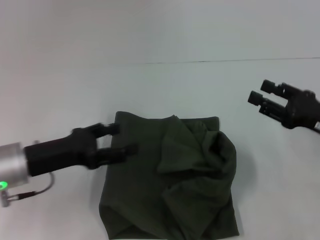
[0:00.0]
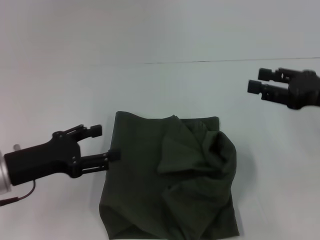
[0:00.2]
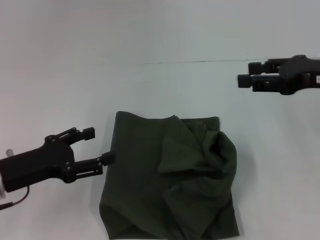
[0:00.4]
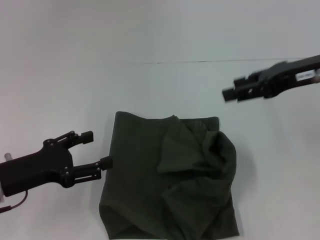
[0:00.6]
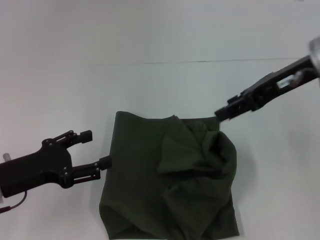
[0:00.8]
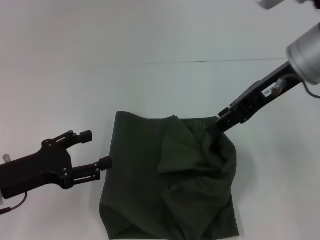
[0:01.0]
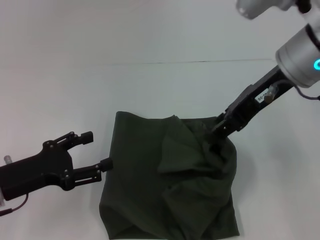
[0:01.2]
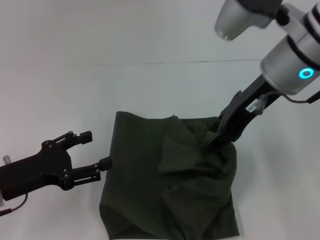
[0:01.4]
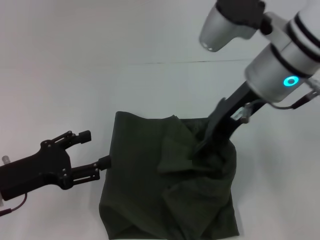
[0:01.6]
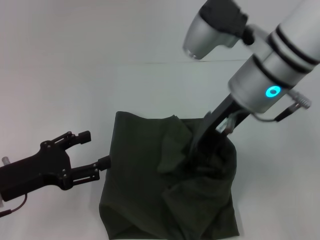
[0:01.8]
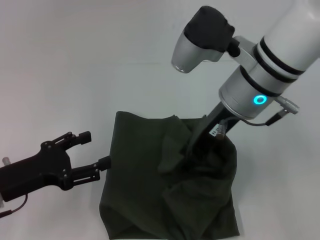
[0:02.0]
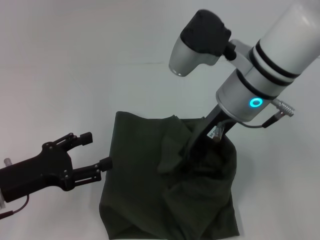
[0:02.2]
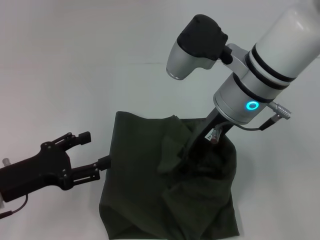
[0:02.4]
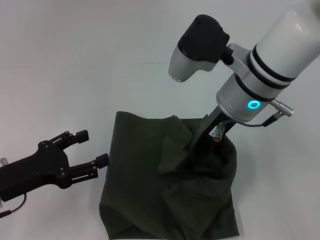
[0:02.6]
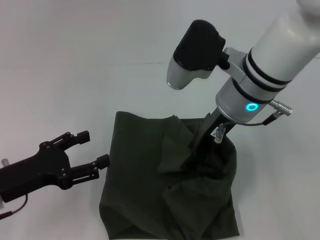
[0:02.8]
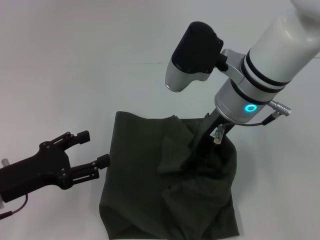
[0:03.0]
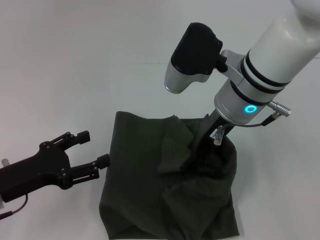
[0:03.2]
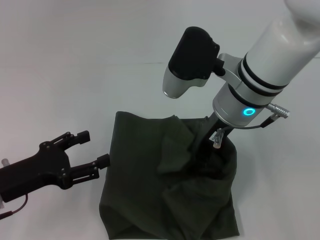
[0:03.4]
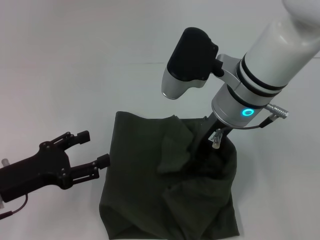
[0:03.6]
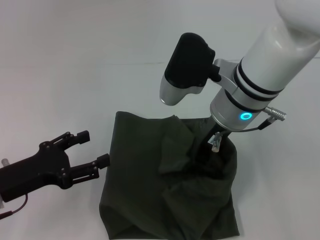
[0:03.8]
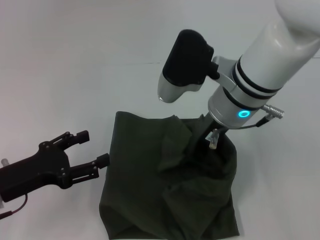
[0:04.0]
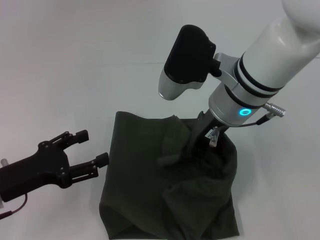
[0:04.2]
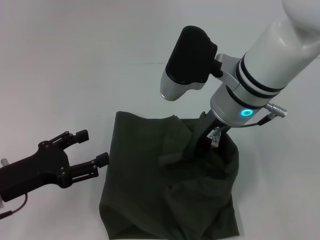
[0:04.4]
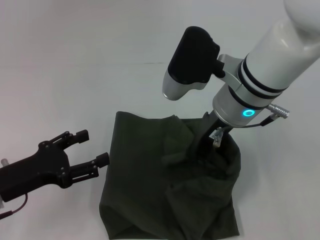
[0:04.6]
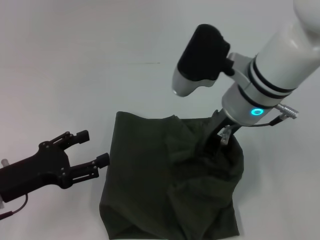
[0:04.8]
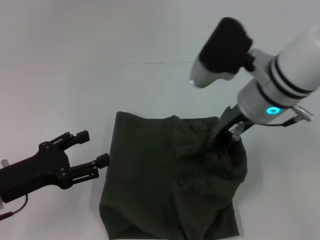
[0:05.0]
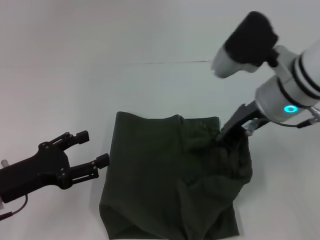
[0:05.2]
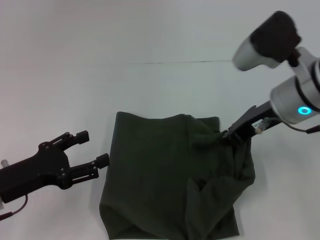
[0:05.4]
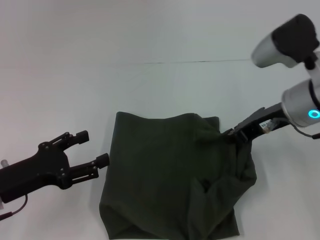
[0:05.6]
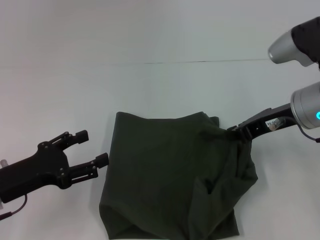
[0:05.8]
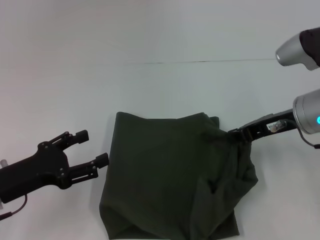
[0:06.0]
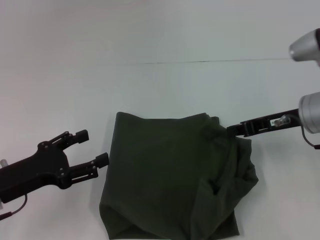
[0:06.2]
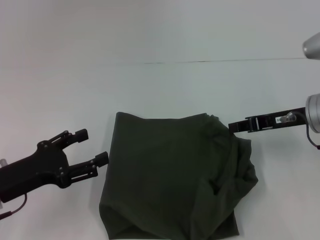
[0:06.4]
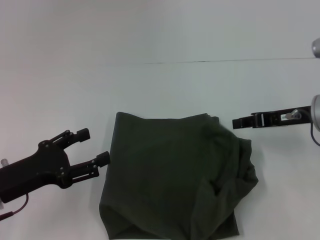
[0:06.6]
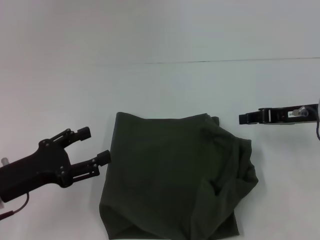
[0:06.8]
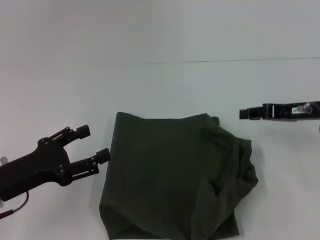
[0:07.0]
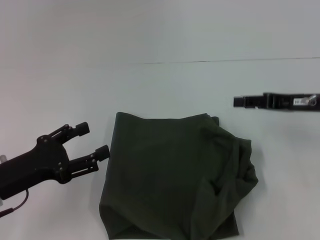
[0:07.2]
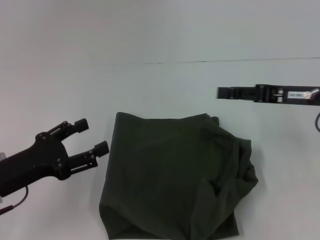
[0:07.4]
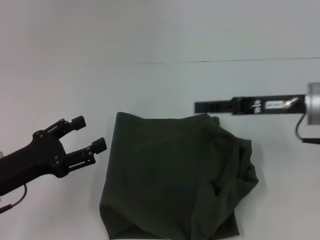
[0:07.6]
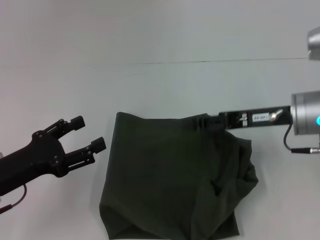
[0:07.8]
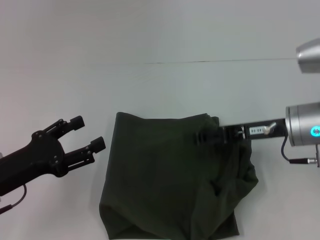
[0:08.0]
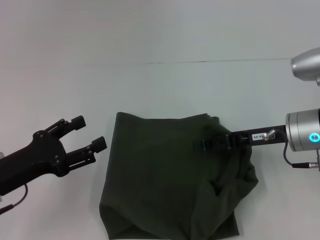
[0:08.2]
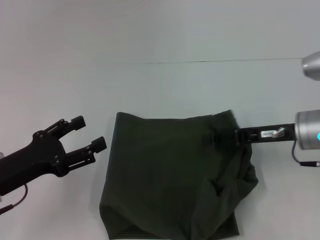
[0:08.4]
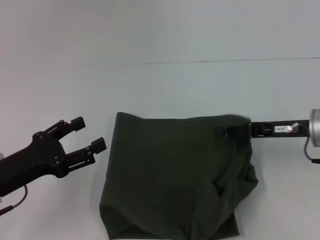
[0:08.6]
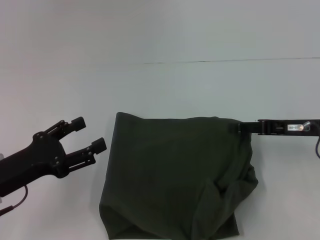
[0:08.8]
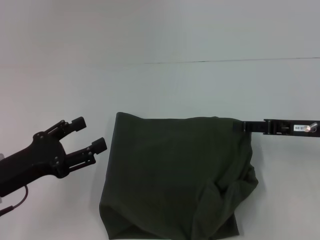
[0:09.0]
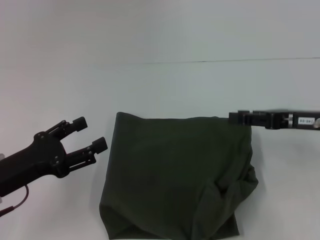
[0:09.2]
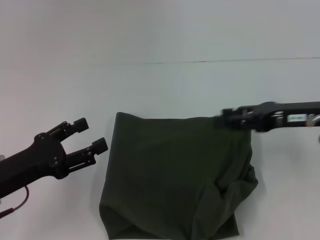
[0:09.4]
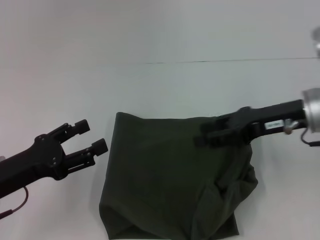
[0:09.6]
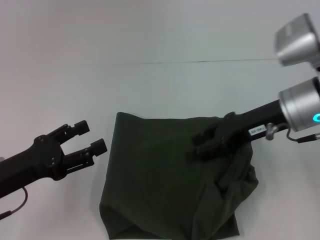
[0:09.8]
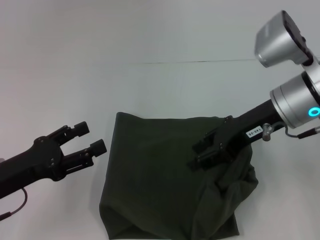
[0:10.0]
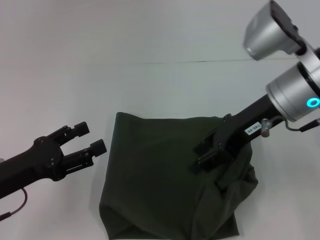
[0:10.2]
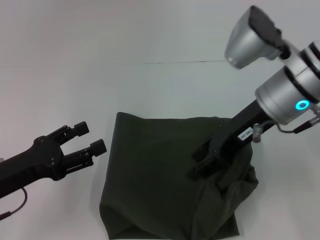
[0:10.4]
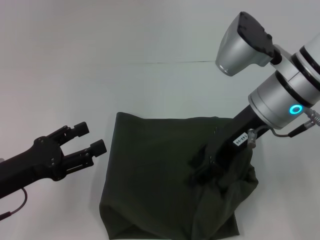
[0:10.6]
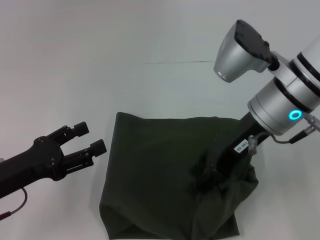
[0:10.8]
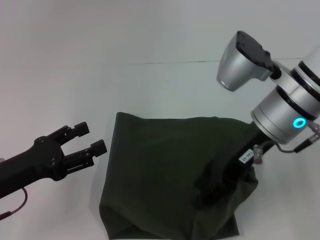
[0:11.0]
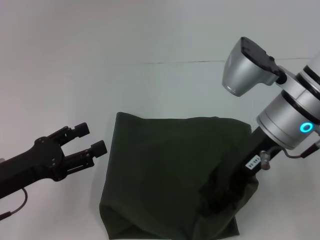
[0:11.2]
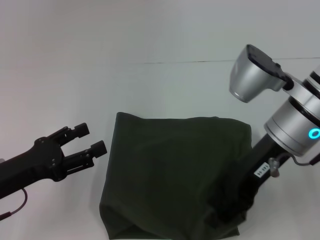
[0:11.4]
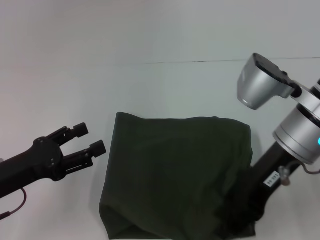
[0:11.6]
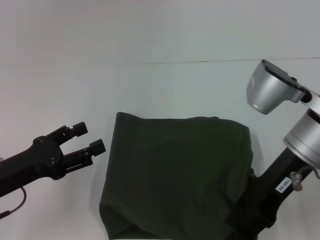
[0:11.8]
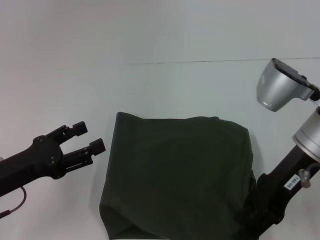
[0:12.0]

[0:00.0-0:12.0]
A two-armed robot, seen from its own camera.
0:00.0 to 0:01.6: The left gripper shifts by about 5 cm. Meanwhile the right gripper heads to the left and upward, covering approximately 25 cm.
0:01.6 to 0:03.0: The right gripper shifts by roughly 5 cm.
0:03.0 to 0:04.4: The right gripper closes up.
0:04.4 to 0:06.0: The right gripper shifts approximately 15 cm to the right.
0:06.0 to 0:07.6: The right gripper opens.
0:07.6 to 0:09.0: The right gripper goes about 5 cm to the right.
0:09.0 to 0:10.4: The right gripper heads to the left and upward, covering approximately 15 cm.
0:10.4 to 0:12.0: The right gripper moves roughly 5 cm.

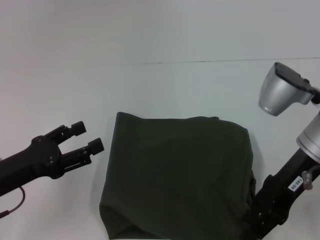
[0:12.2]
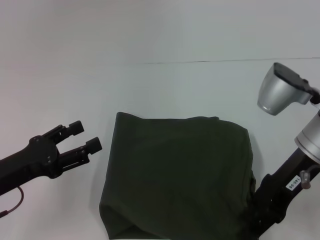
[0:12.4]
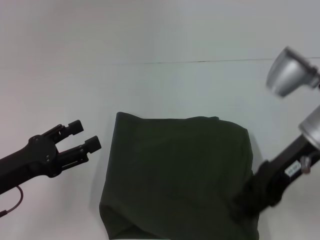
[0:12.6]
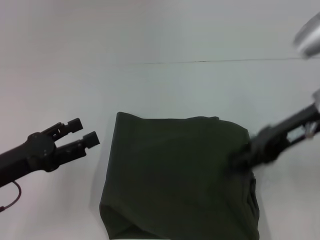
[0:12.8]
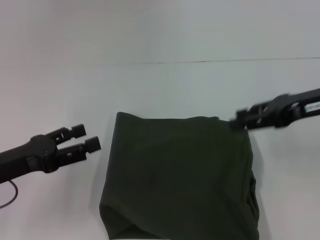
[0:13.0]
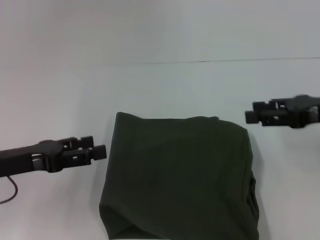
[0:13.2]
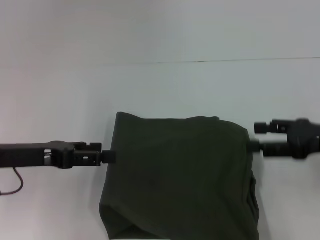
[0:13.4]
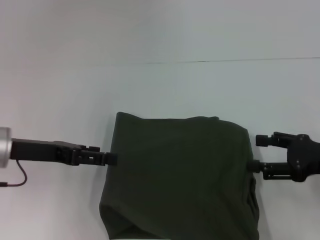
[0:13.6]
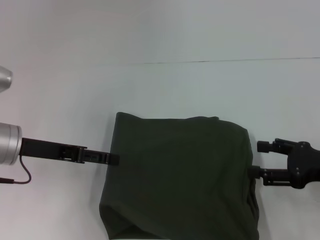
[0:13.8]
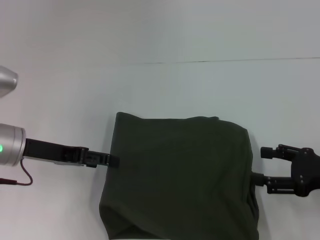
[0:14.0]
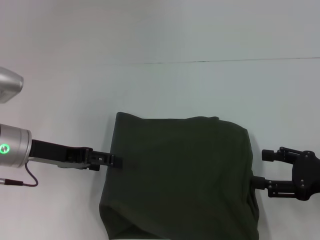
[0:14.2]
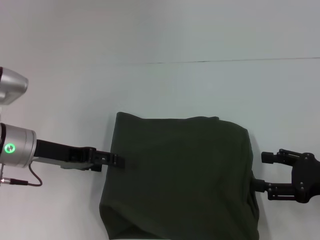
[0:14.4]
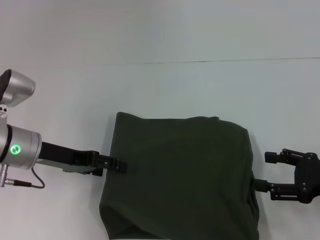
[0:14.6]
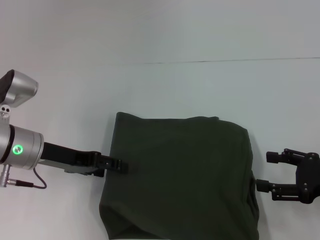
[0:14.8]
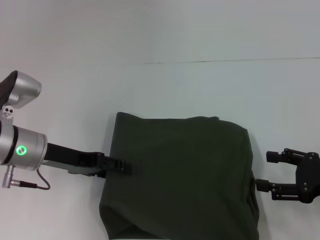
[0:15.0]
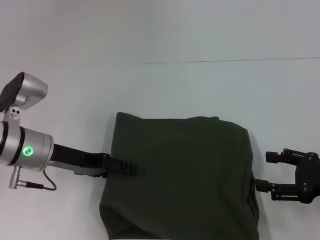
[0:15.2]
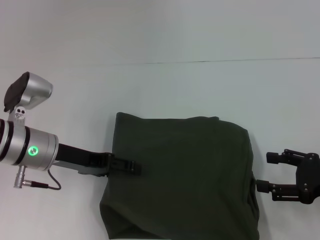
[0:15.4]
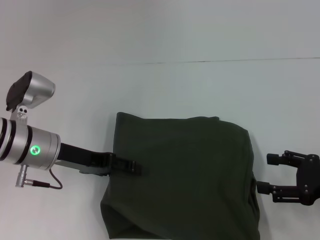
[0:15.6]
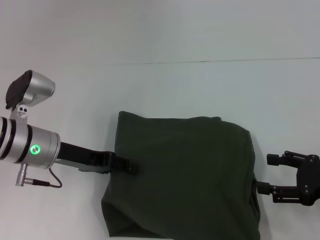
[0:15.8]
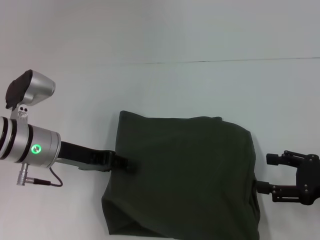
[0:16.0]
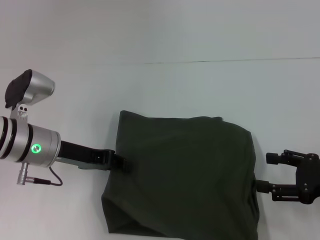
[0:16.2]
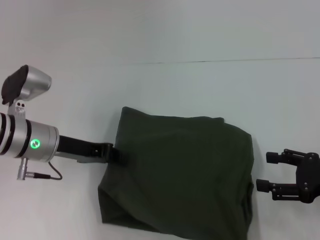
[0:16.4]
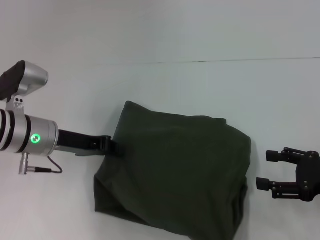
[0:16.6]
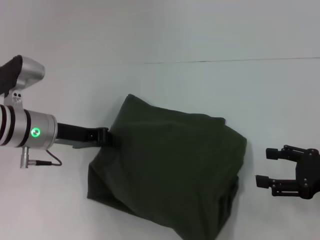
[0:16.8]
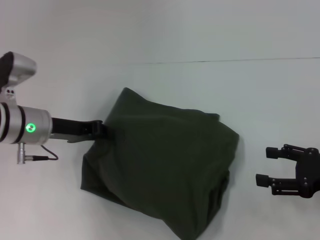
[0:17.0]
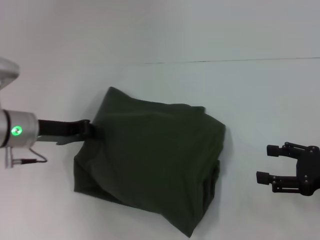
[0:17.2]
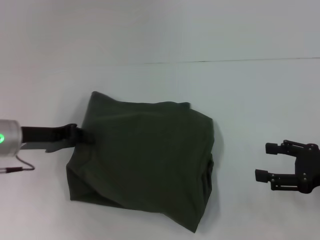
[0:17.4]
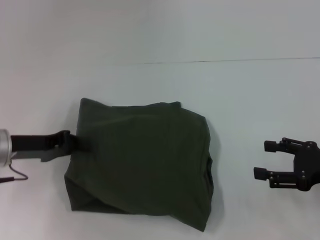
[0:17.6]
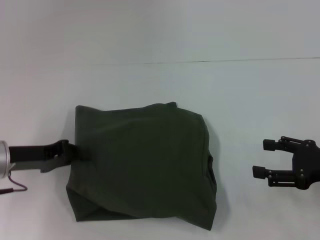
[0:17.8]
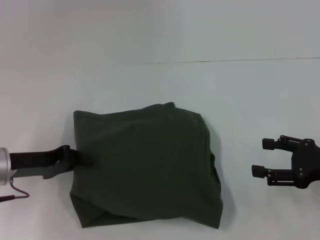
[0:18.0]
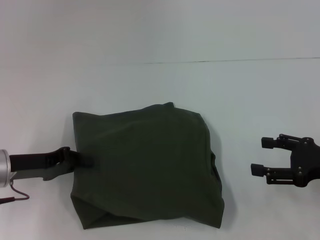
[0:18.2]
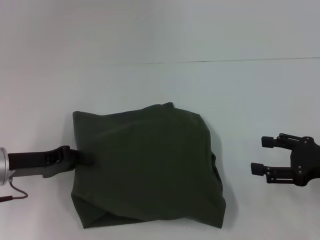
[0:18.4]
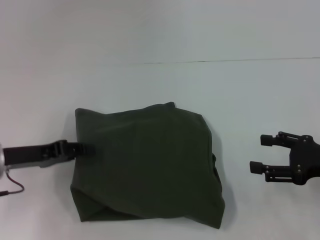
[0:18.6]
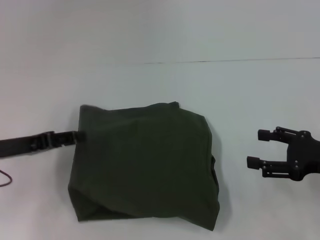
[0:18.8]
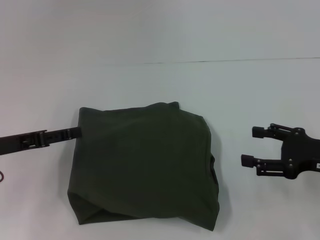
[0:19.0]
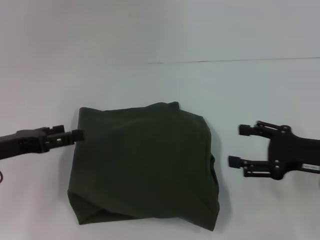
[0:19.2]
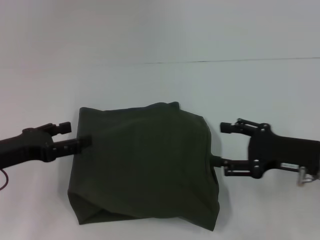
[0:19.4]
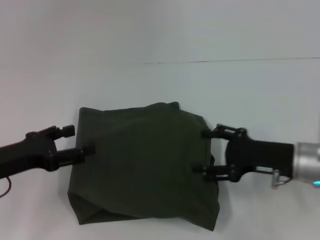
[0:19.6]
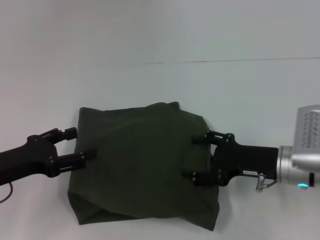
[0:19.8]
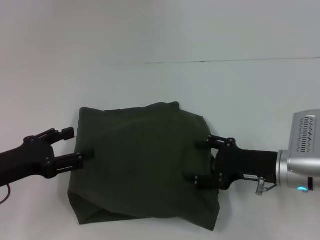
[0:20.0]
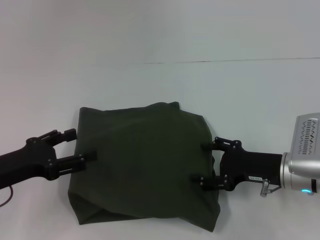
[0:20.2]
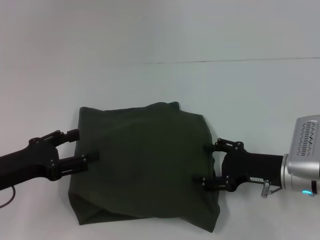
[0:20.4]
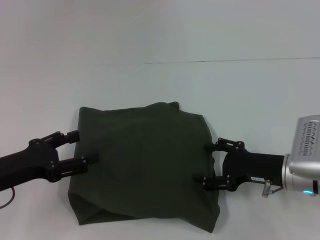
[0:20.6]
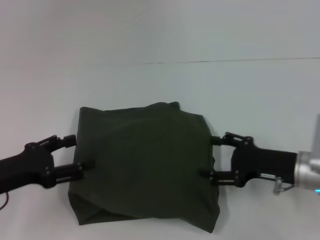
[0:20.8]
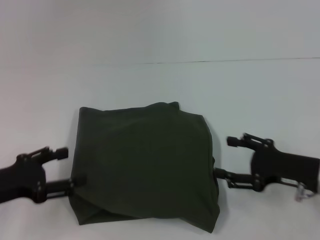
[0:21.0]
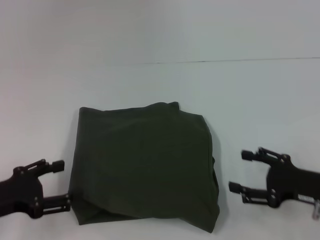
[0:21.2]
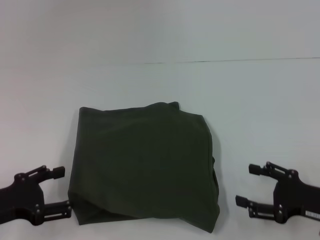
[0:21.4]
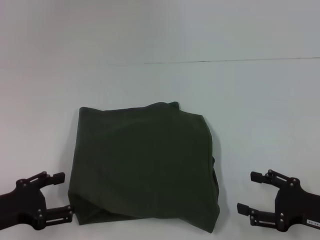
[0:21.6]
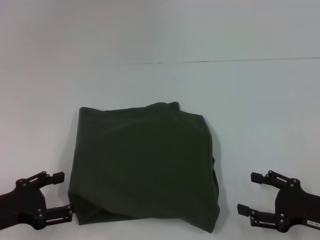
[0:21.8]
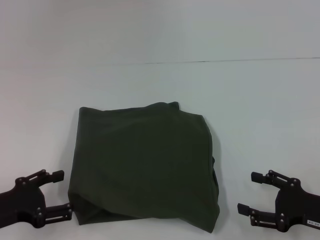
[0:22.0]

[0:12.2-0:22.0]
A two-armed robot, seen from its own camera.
0:12.2 to 0:13.6: The left gripper travels forward by roughly 10 cm; the right gripper is displaced to the right and downward by about 15 cm.
0:15.0 to 0:16.4: The left gripper closes its fingers.
0:16.4 to 0:17.8: The left gripper goes roughly 5 cm to the left.
0:17.8 to 0:19.2: The left gripper opens its fingers.
0:19.2 to 0:20.6: The right gripper travels to the left and downward by roughly 10 cm.
0:20.6 to 0:22.0: The left gripper moves about 5 cm. Meanwhile the right gripper heads backward and to the right, covering roughly 10 cm.
